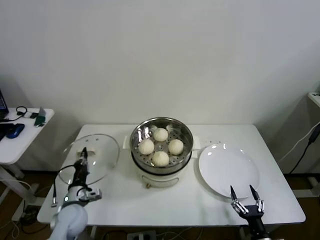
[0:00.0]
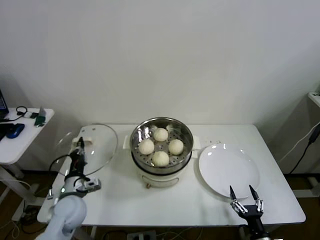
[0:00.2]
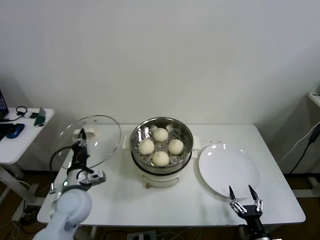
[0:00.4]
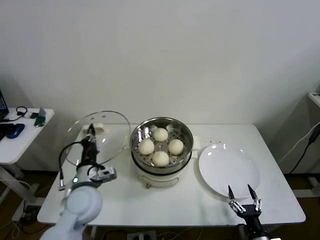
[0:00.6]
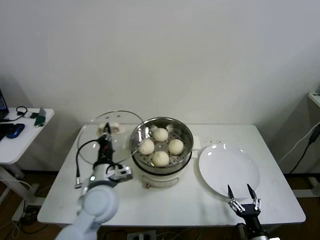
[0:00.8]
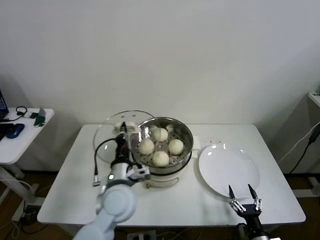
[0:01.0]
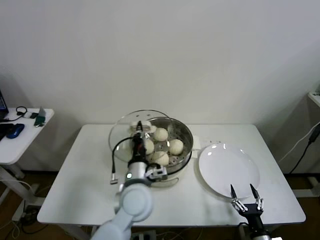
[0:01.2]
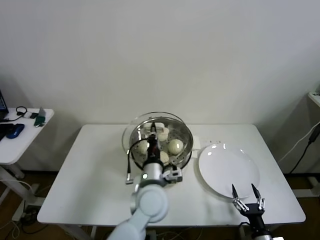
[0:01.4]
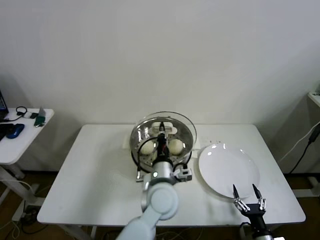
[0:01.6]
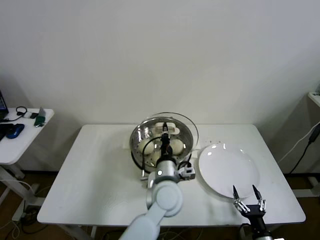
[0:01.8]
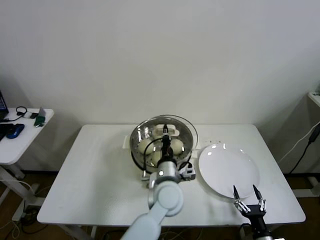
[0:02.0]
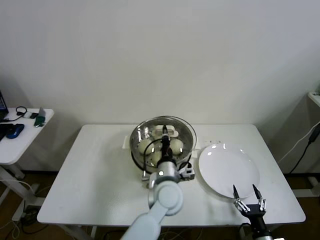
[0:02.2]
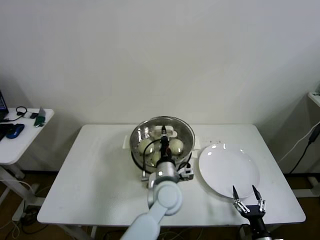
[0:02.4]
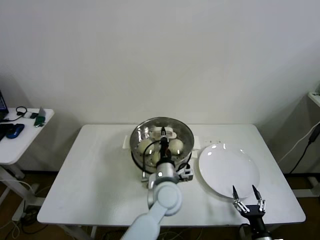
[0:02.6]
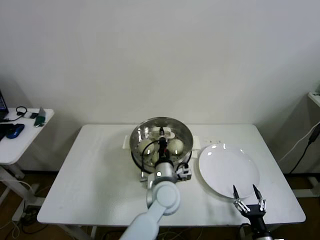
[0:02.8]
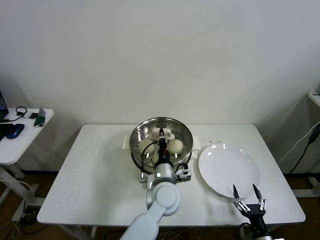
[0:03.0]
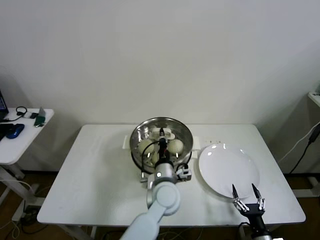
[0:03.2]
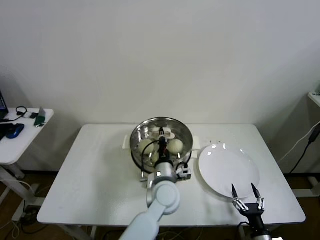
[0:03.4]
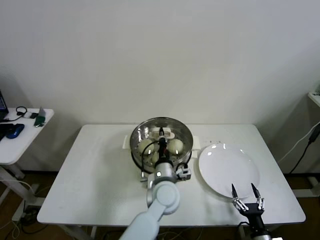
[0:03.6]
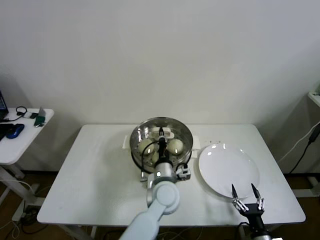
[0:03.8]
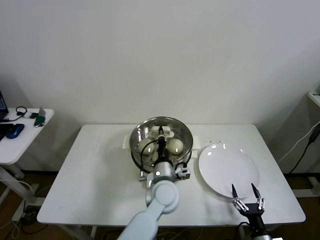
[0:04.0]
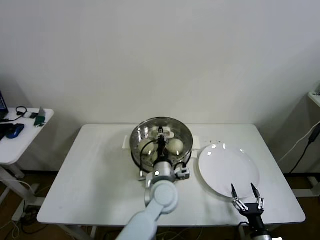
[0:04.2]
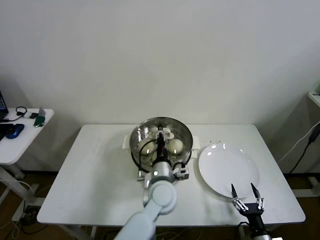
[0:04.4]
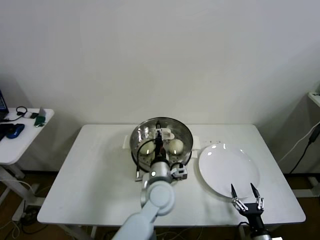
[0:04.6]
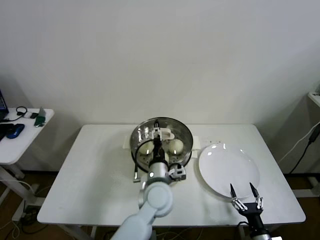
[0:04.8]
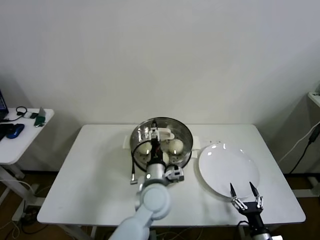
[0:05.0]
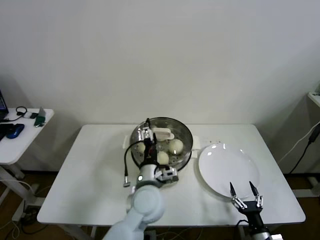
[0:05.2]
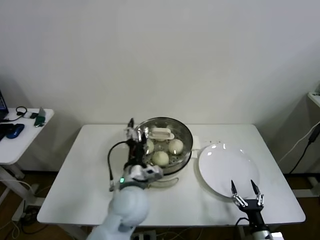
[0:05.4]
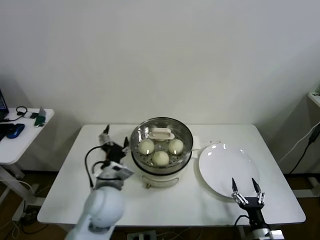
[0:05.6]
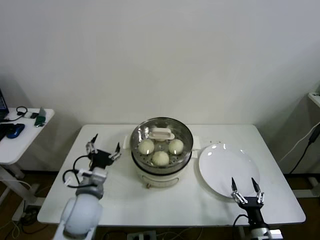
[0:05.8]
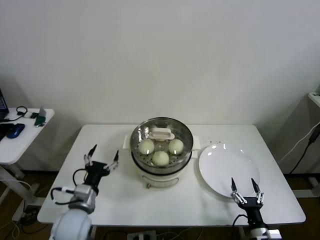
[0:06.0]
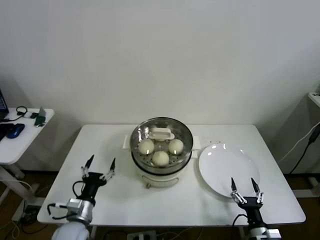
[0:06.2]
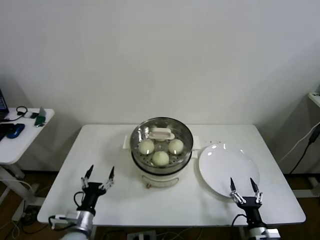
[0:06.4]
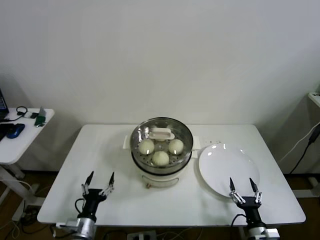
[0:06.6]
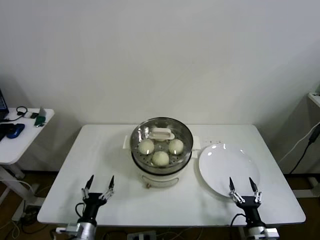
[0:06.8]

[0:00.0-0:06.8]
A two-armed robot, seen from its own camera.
Step, 0:00.0 to 0:04.2: Place the pot lid on the steamer with left gripper.
0:00.0 to 0:01.4: The left gripper goes approximately 30 cm to the right and upward.
0:01.4 to 0:02.8: The left gripper travels to the right by approximately 5 cm.
0:02.8 to 0:04.0: The two grippers keep their place.
0:04.0 to 0:05.4: The left gripper shifts approximately 10 cm to the left and upward, and opens its fingers.
0:05.4 to 0:06.8: The left gripper moves to the left, downward and backward, about 30 cm.
